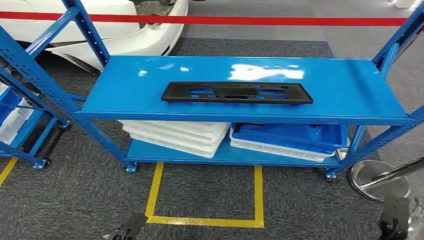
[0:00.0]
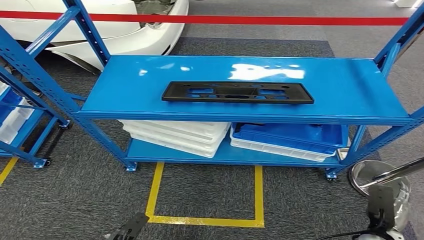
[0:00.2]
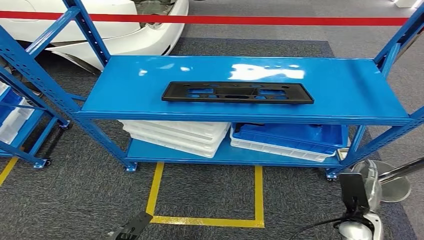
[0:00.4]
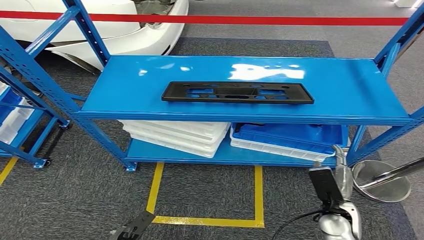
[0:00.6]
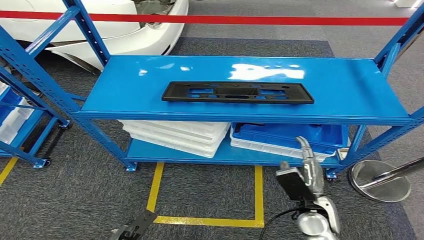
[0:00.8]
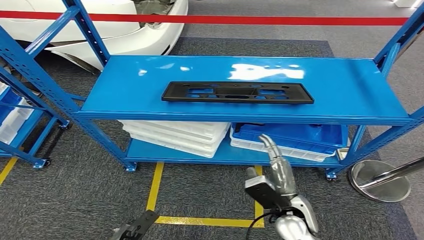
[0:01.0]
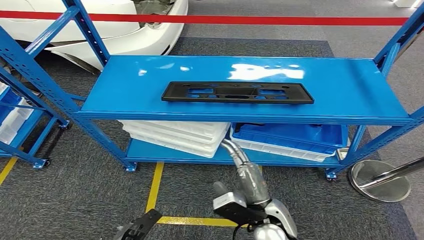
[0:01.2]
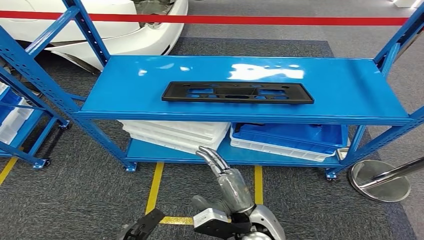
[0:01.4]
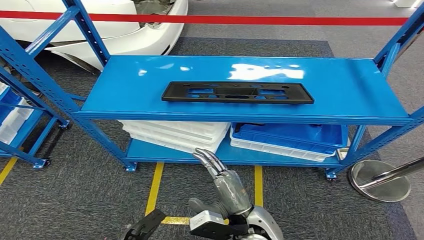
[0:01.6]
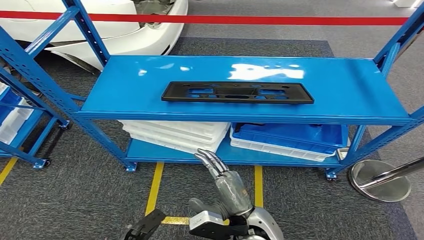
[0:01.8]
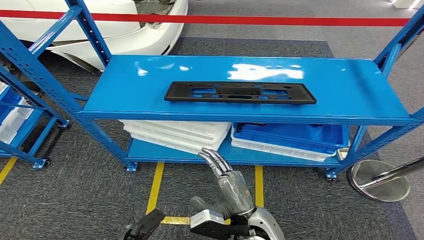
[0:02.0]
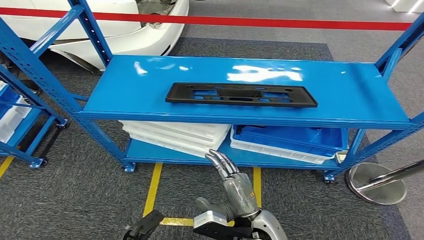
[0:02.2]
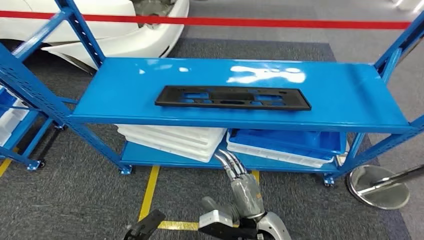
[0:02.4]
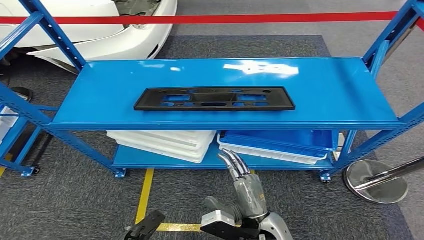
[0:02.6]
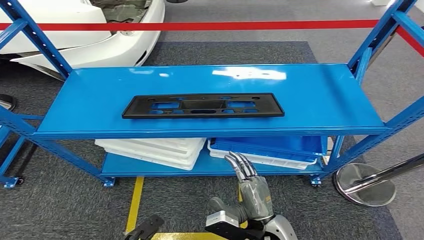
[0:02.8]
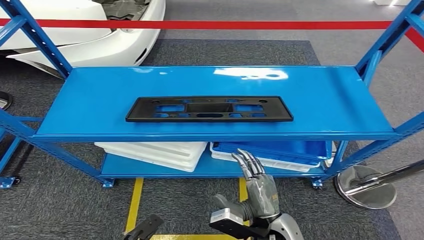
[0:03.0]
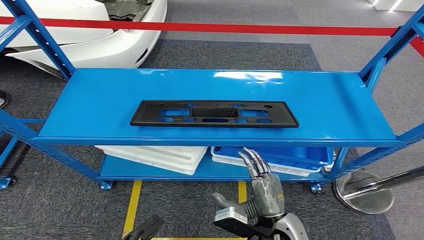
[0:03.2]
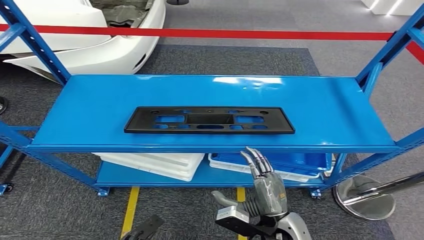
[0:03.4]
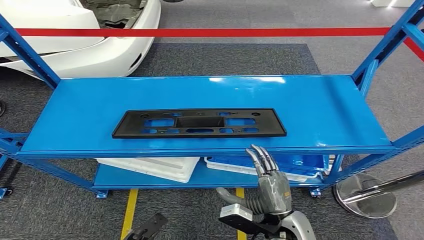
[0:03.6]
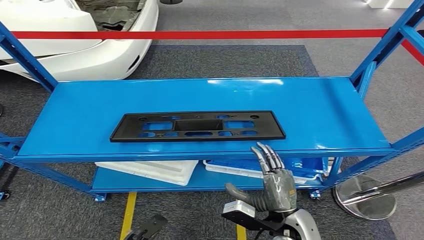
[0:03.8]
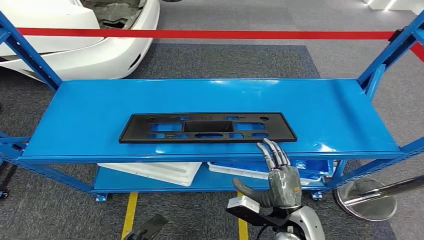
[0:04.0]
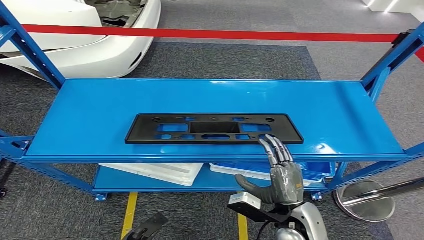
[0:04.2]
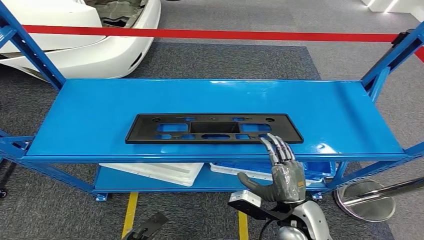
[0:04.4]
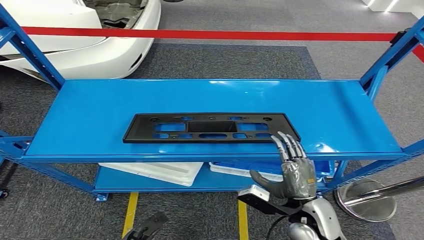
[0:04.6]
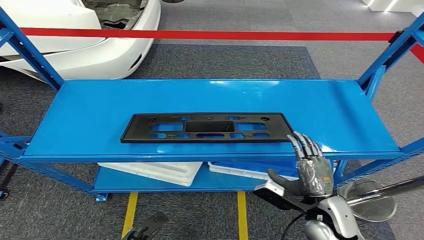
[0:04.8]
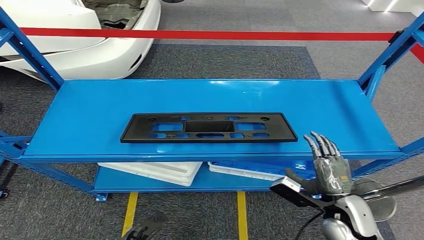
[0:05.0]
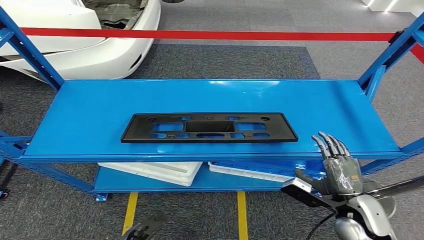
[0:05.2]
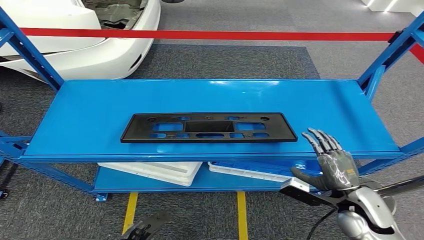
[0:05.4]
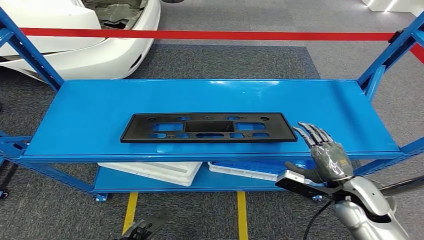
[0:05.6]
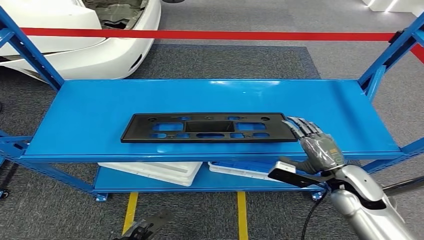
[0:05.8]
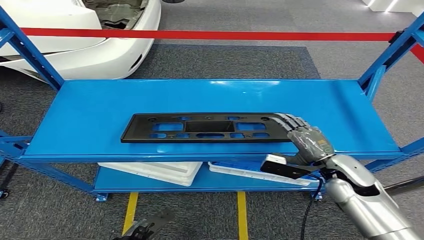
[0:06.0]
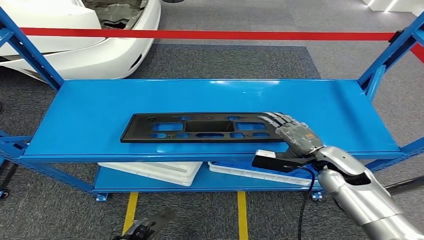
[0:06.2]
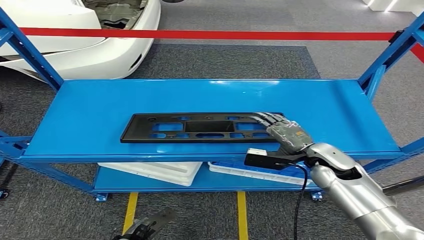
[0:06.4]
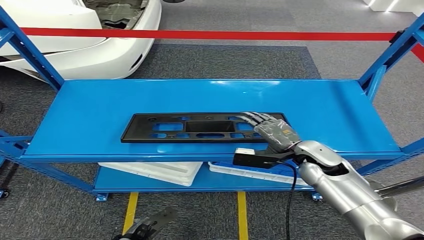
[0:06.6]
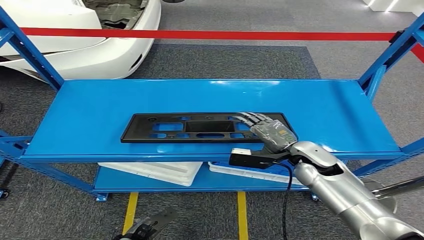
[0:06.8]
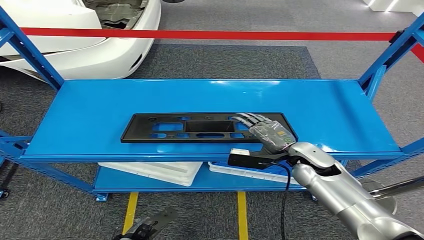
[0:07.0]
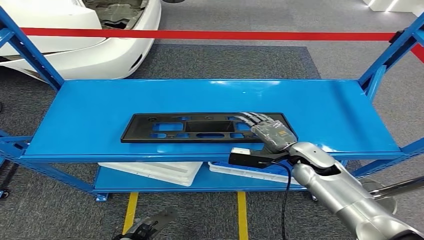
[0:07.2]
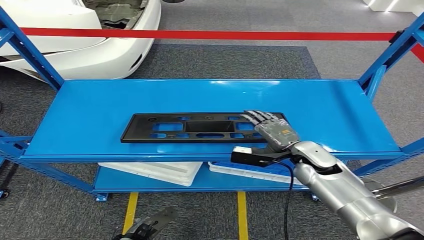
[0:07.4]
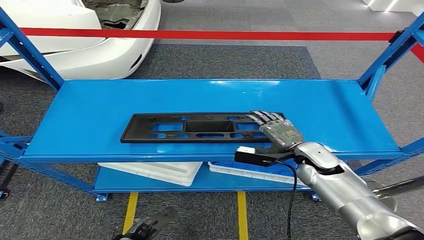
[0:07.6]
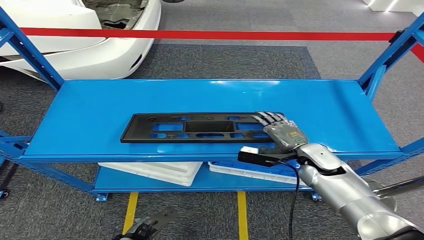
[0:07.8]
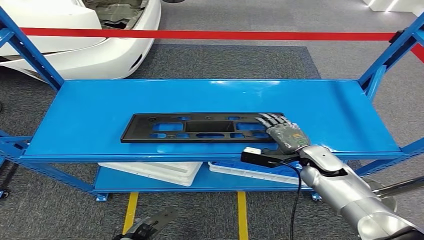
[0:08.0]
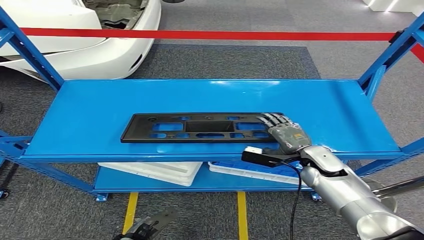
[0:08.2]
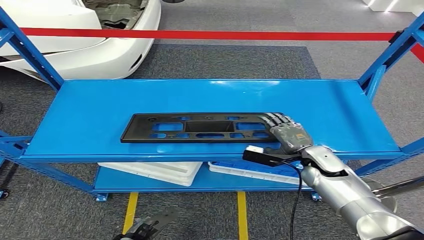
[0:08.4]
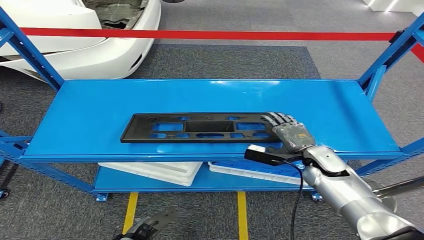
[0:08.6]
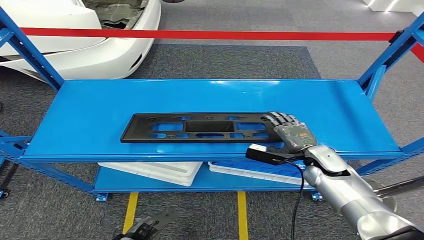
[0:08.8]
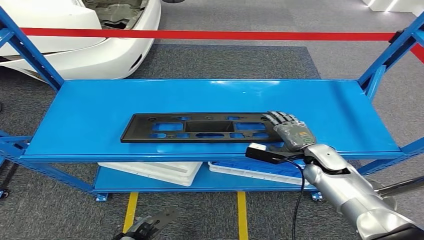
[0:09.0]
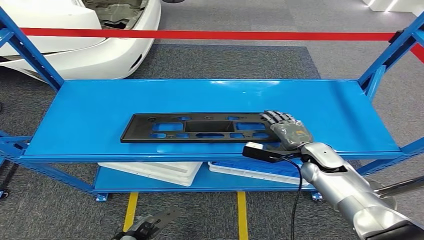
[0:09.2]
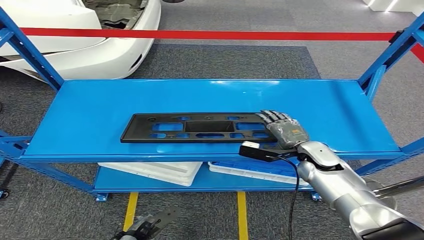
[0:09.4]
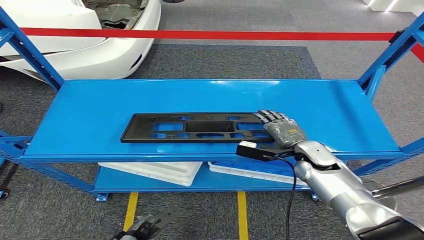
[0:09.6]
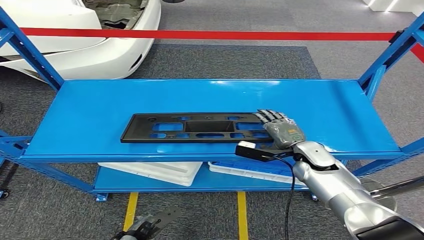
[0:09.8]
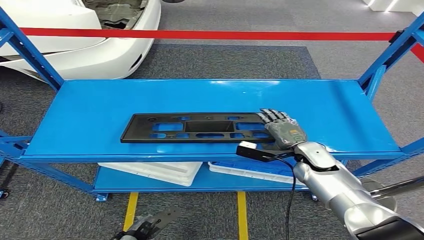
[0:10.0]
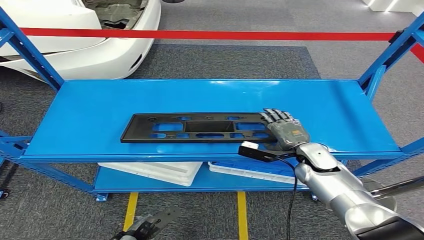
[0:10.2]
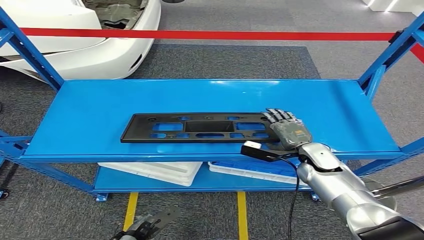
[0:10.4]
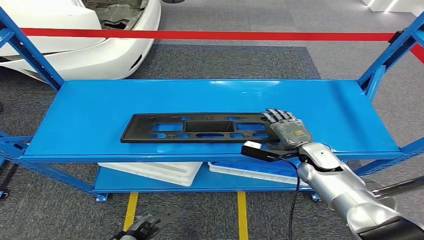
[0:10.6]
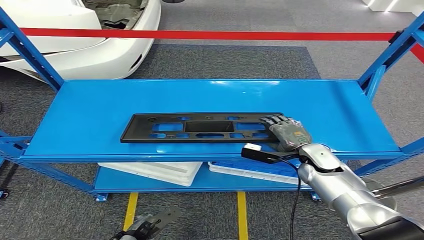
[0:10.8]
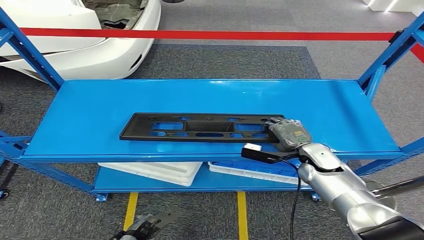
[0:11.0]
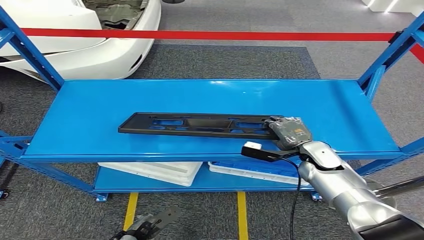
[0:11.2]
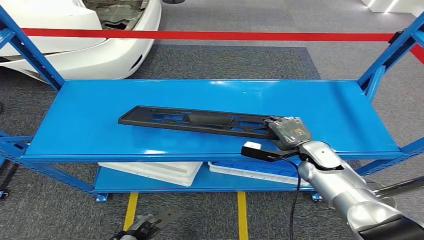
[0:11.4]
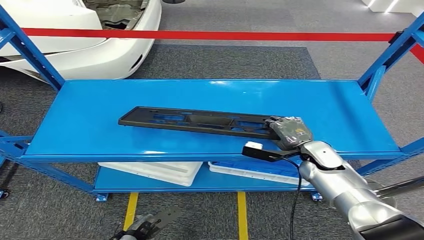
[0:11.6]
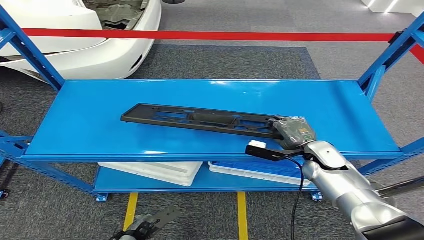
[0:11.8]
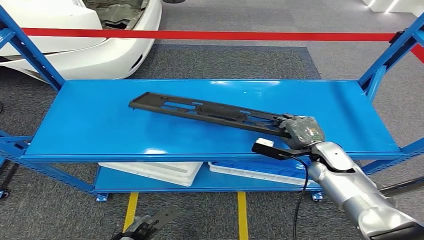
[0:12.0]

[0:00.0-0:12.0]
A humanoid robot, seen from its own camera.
0:04.4 to 0:06.0: The right hand shifts roughly 15 cm forward, to the right and upward.
0:06.0 to 0:07.6: The right hand ends up some 5 cm from where it was.
0:07.6 to 0:12.0: The hands move only a little.

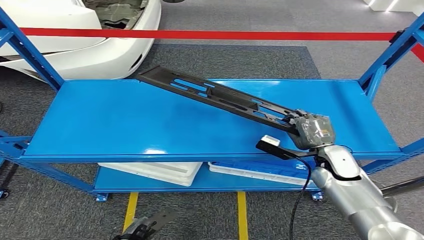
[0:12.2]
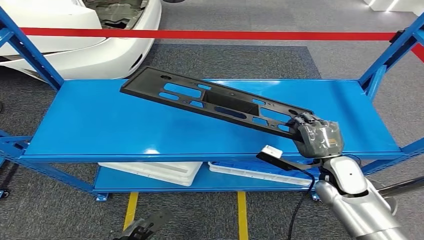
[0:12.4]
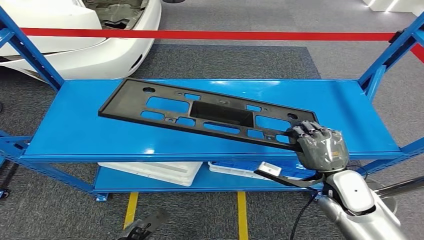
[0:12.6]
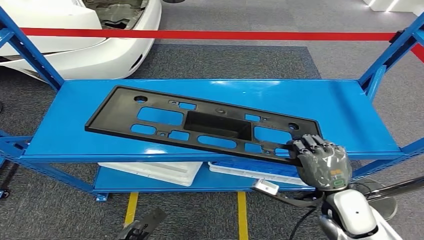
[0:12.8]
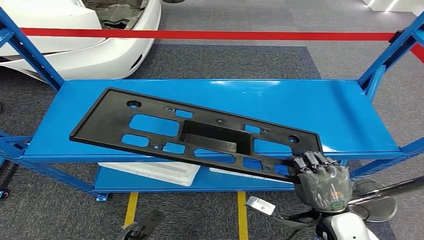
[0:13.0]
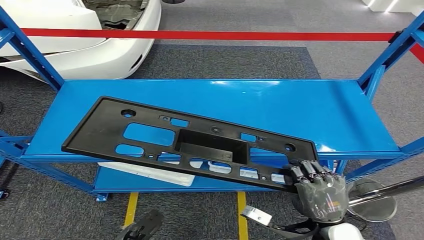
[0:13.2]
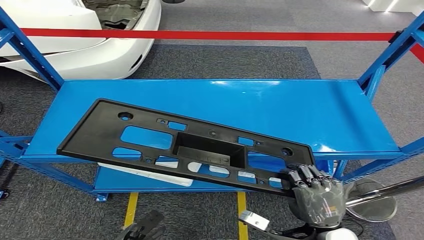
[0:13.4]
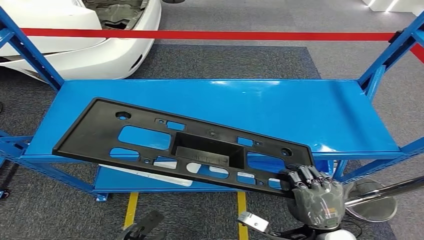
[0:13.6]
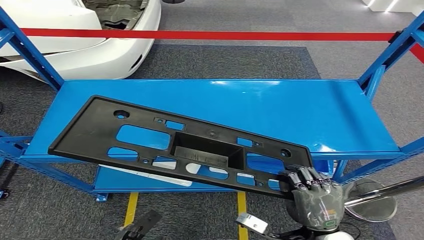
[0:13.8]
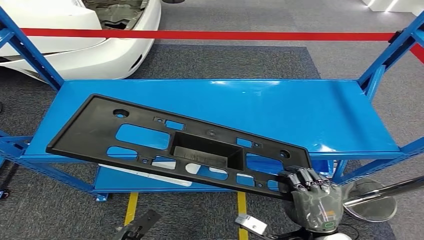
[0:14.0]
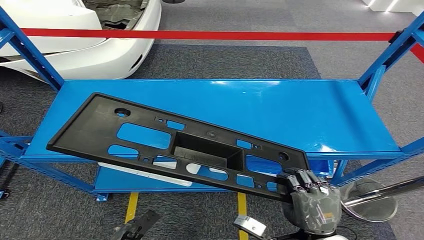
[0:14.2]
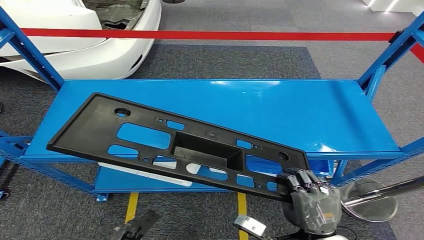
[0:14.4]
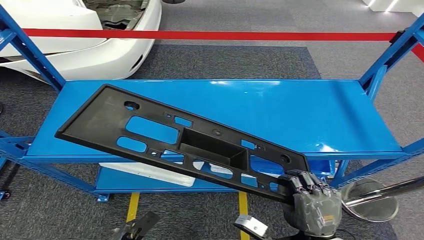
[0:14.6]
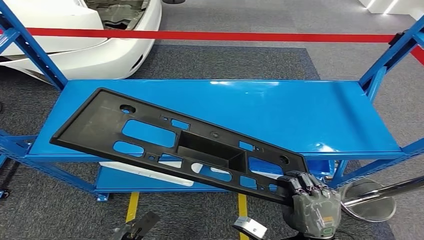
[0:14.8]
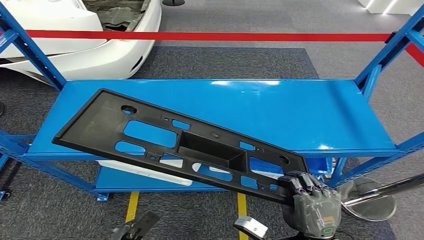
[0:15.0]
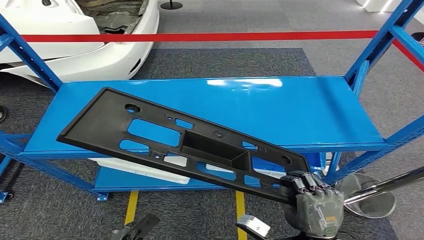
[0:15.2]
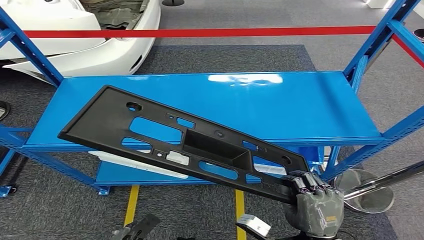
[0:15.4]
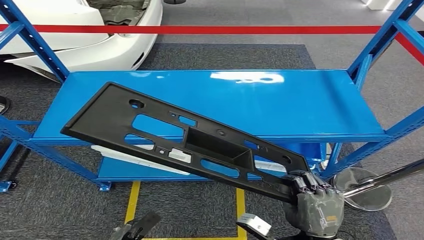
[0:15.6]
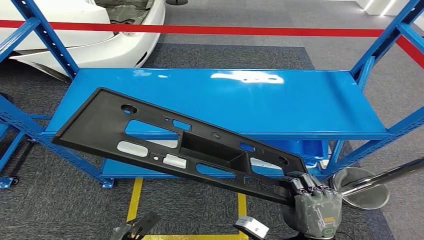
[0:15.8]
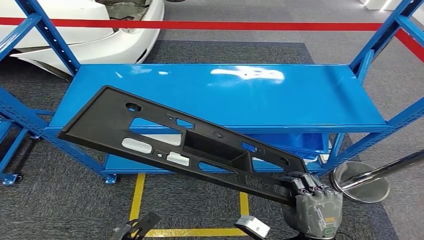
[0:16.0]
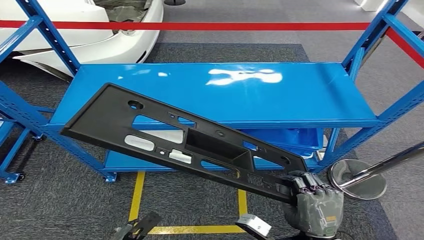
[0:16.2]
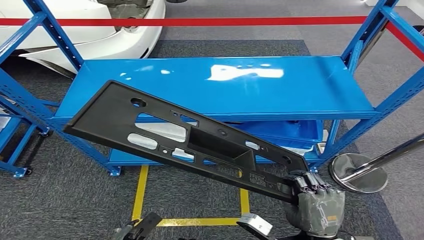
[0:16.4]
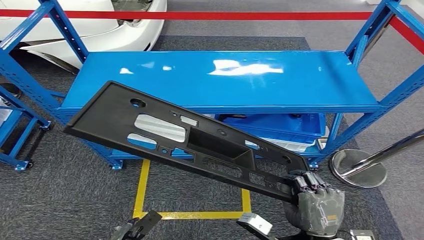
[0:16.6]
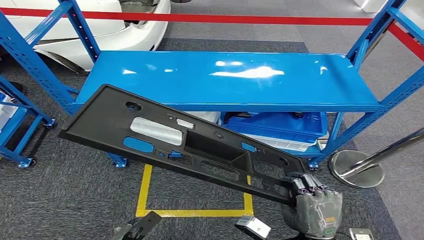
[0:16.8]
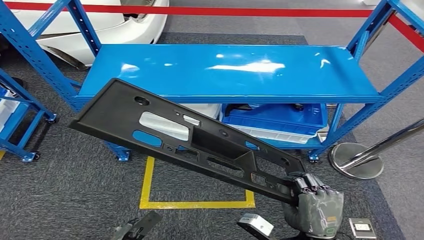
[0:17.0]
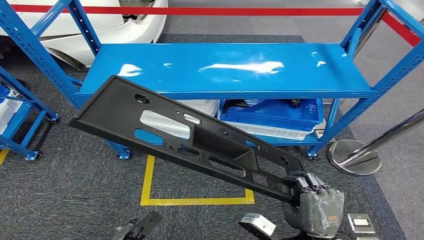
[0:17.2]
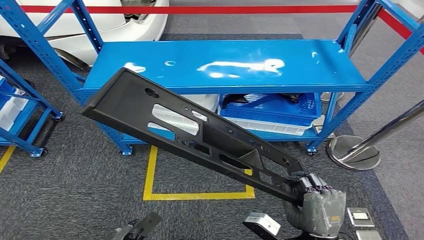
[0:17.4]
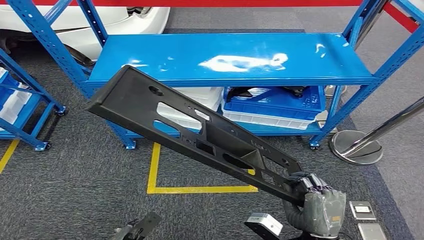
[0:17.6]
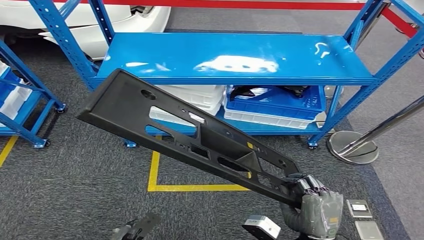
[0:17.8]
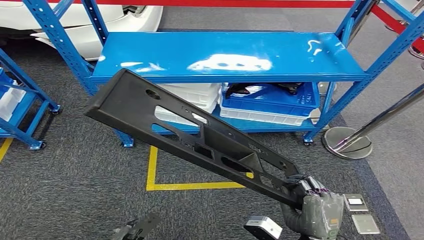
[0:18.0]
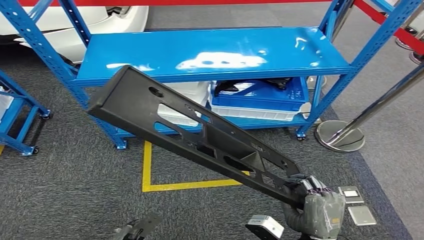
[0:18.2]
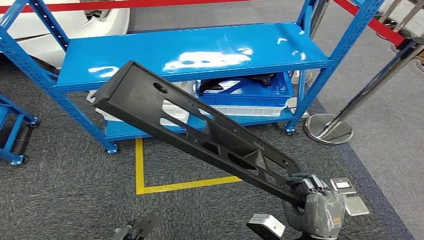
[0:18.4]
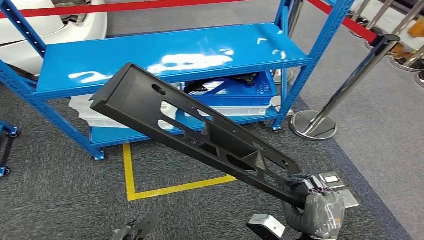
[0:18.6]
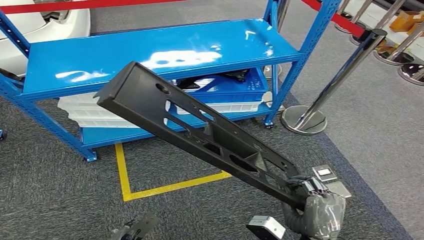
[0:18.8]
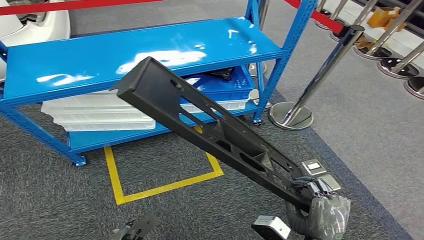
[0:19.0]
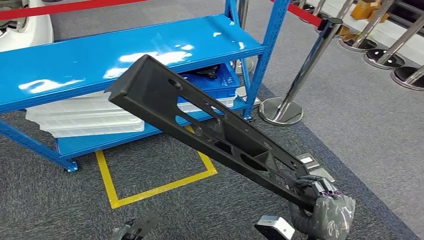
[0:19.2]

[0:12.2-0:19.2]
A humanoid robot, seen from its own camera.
0:13.6 to 0:15.0: The hands stay close to where they were, moving slightly.
